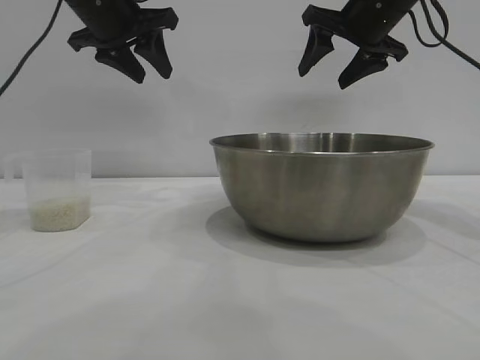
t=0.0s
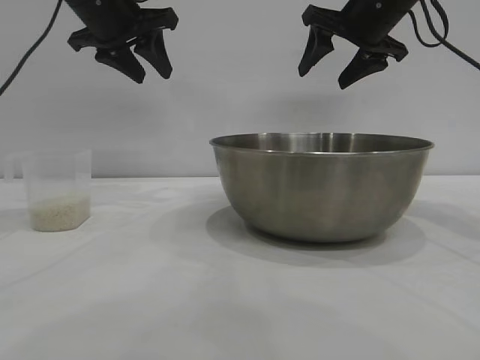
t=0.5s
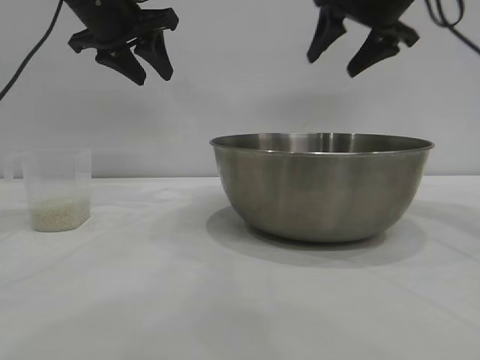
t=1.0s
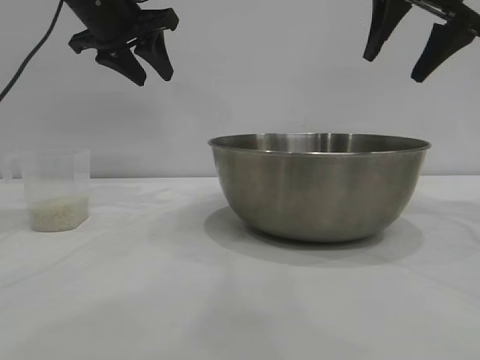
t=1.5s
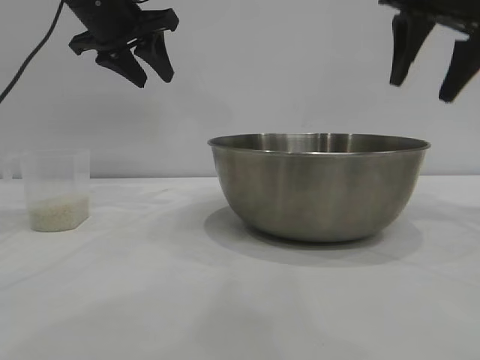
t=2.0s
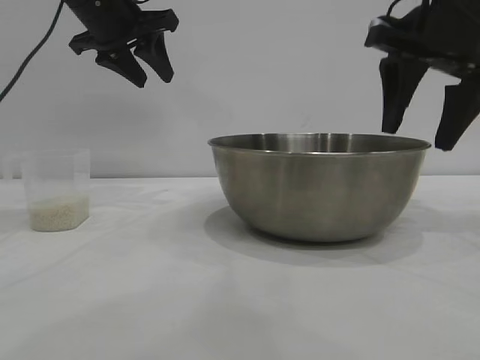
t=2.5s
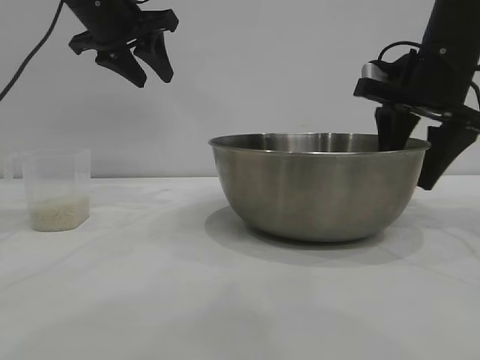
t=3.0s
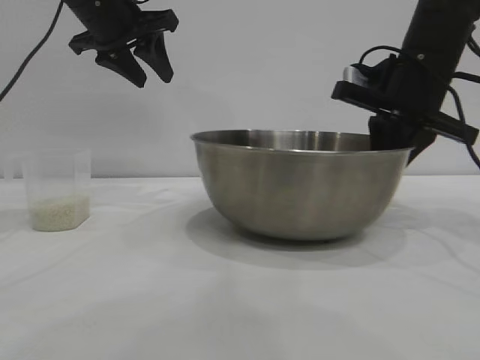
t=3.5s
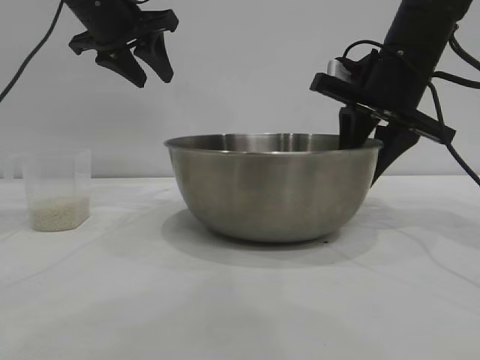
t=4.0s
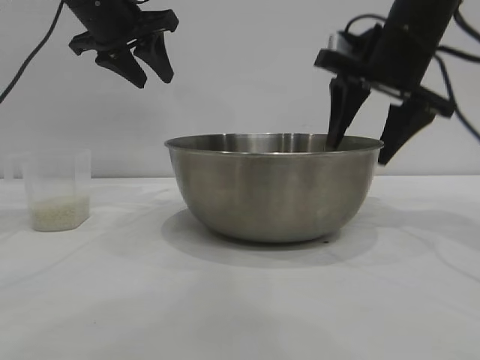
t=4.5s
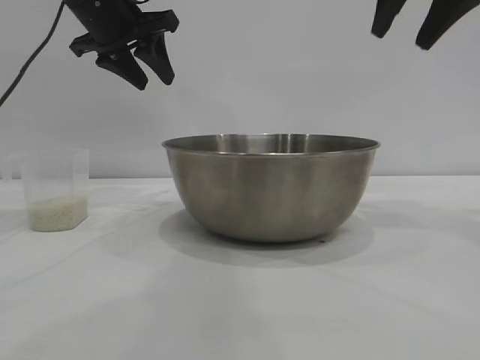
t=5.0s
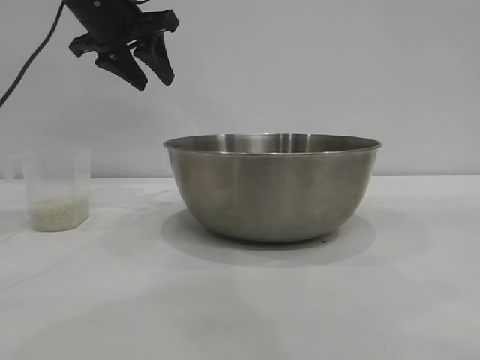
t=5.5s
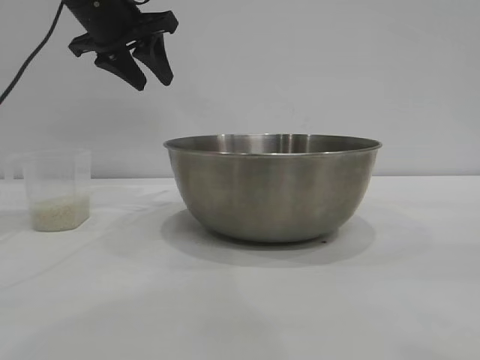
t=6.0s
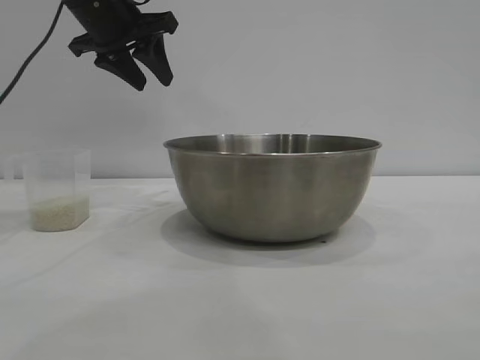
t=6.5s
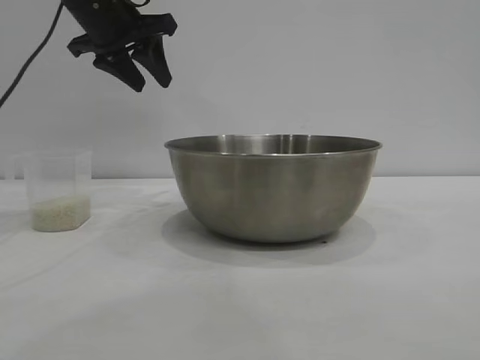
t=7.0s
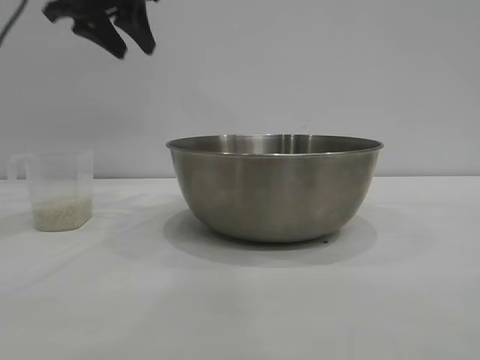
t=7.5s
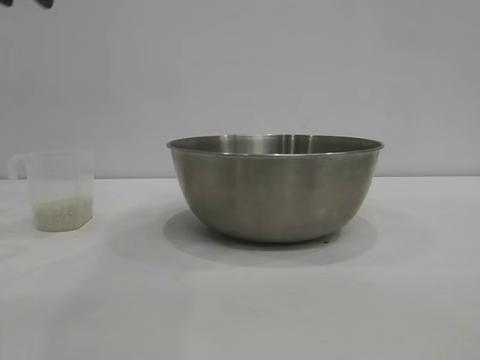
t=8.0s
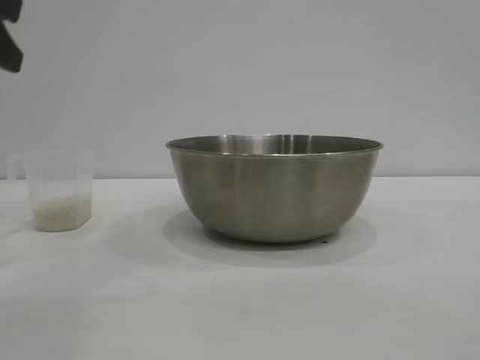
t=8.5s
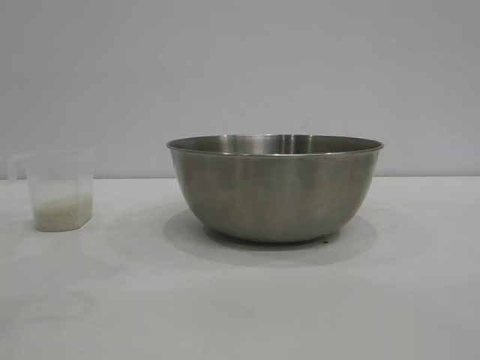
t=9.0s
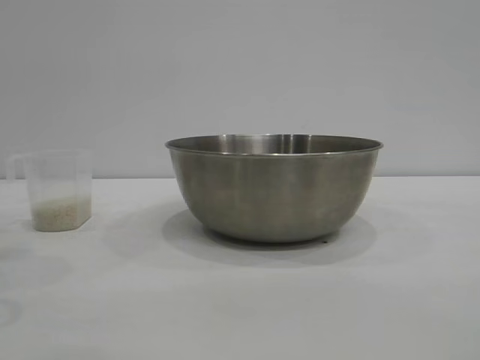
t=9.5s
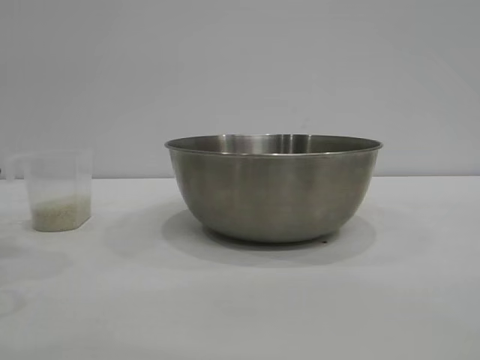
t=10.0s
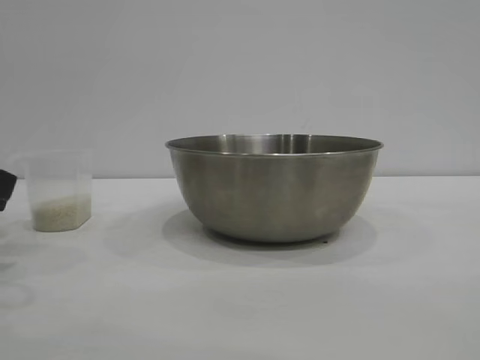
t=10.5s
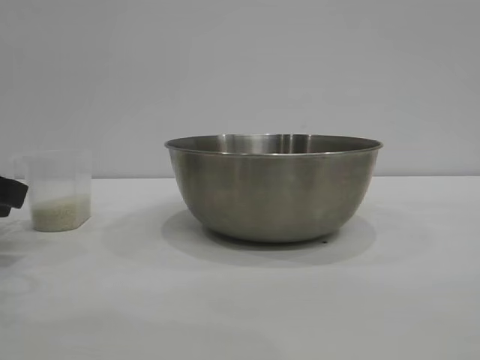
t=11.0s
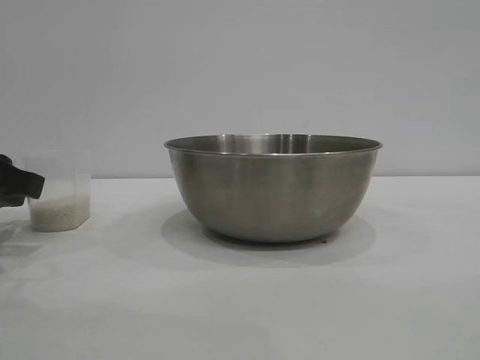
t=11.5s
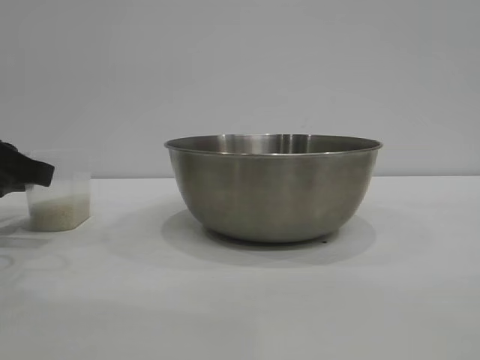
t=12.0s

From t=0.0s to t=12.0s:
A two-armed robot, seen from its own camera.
Task of the whole recording: the right gripper grasp the rice container and place it in the center of the table, the left gripper grasp the rice scoop and pour the rice into the rice container.
Step, from t=0.0s to t=3.5s: Pick up the bowl with the right gripper.
Step, from t=4.0s to t=4.5s: Place the bowl in the center of view with the right gripper.

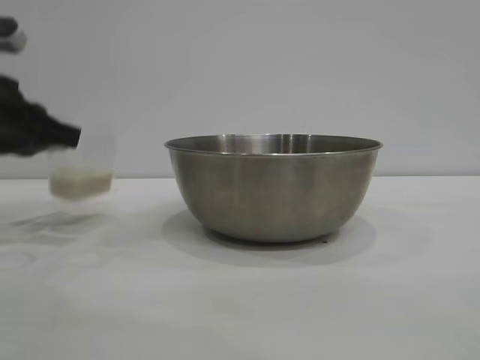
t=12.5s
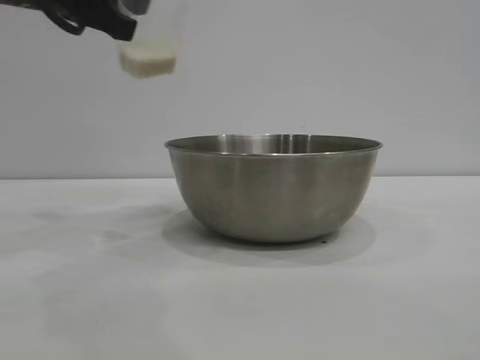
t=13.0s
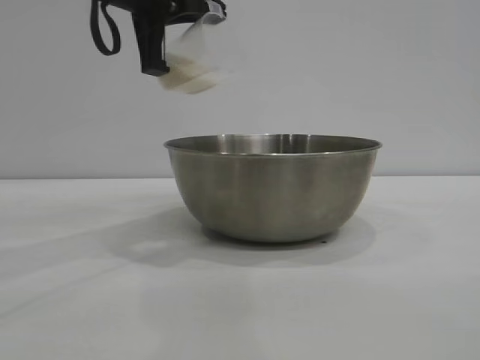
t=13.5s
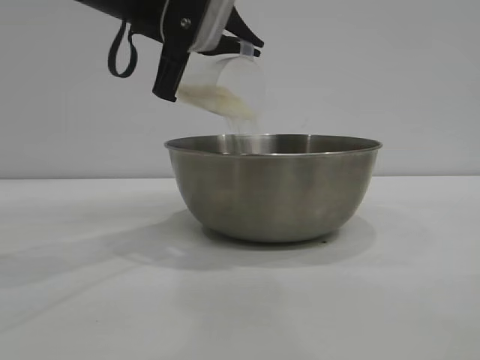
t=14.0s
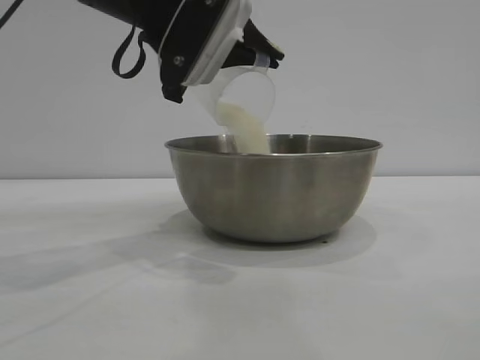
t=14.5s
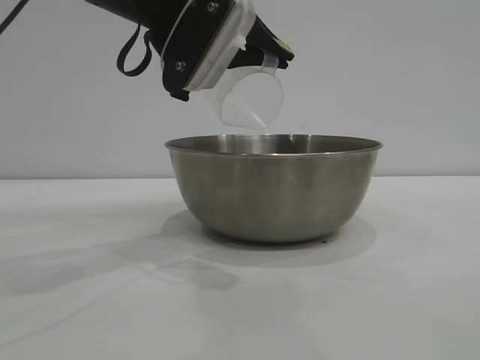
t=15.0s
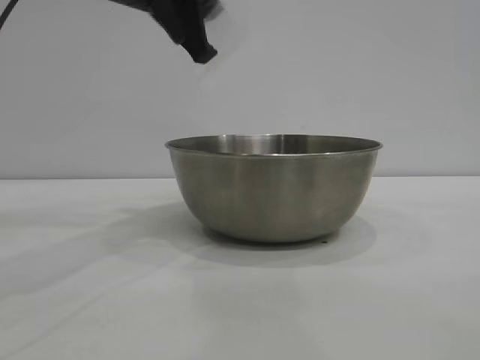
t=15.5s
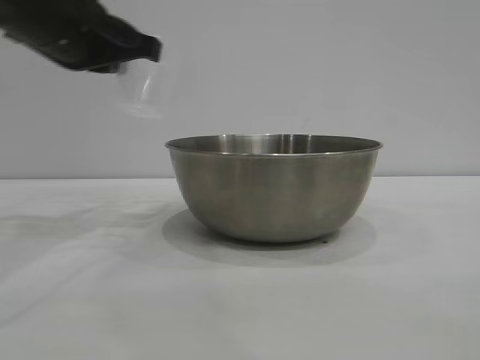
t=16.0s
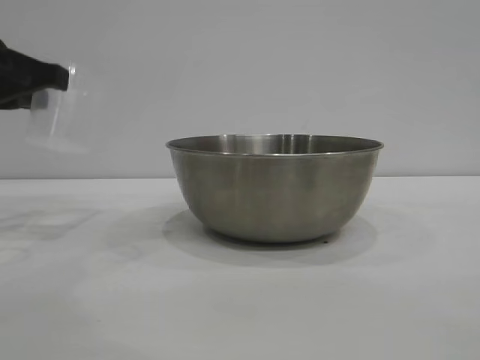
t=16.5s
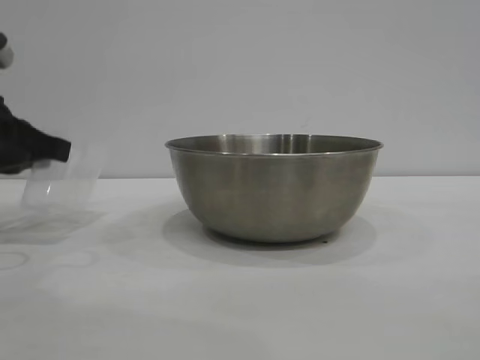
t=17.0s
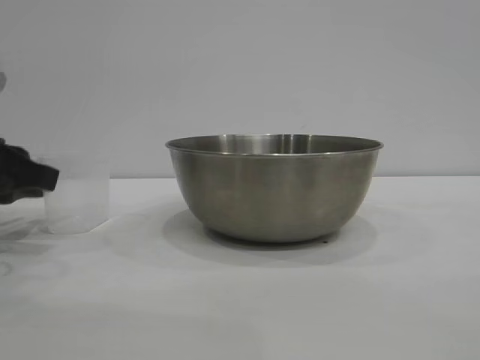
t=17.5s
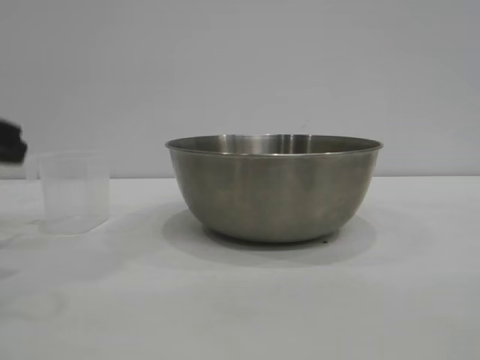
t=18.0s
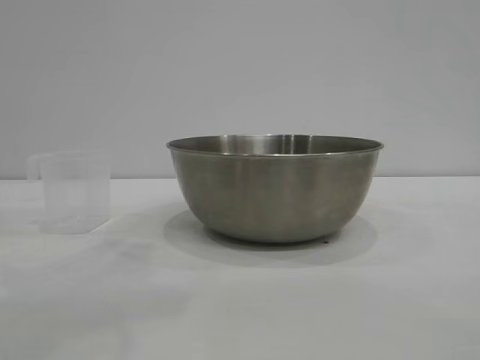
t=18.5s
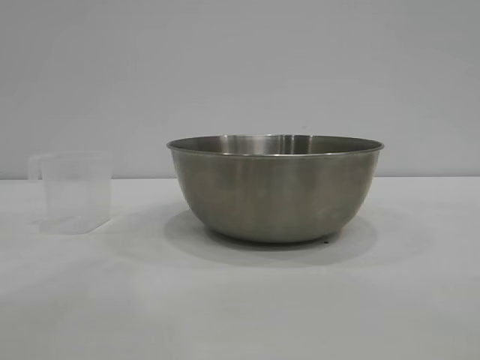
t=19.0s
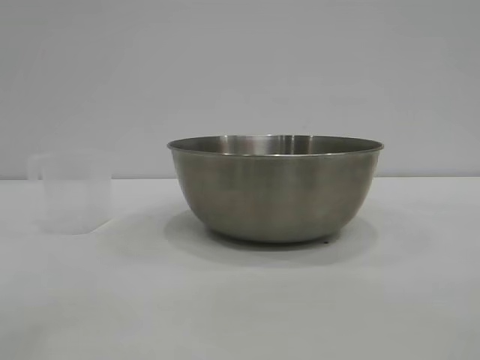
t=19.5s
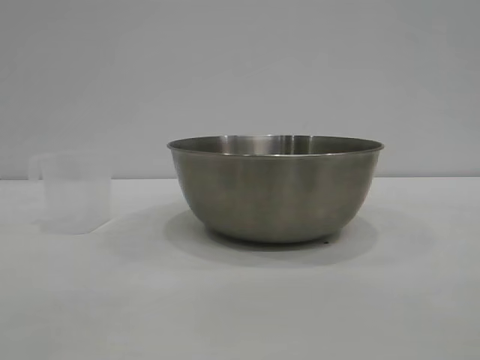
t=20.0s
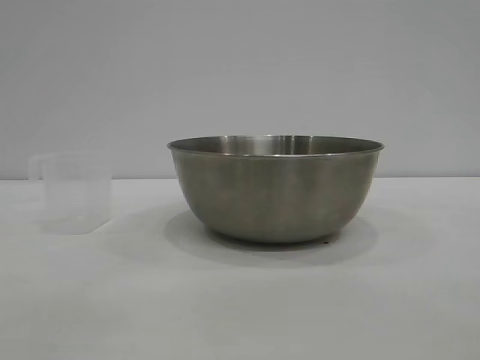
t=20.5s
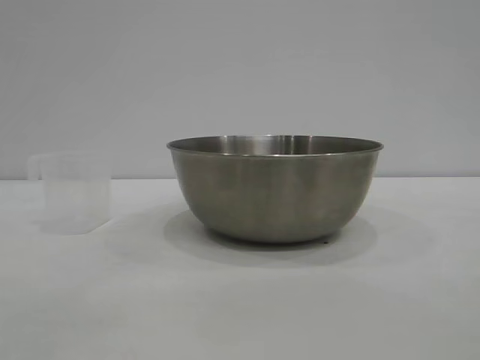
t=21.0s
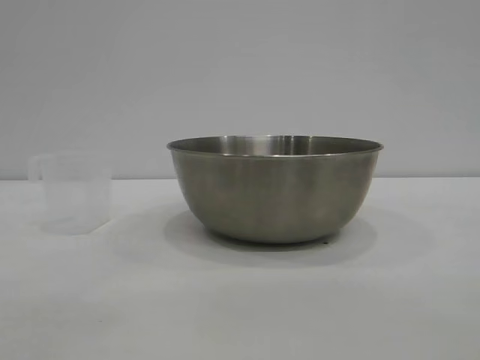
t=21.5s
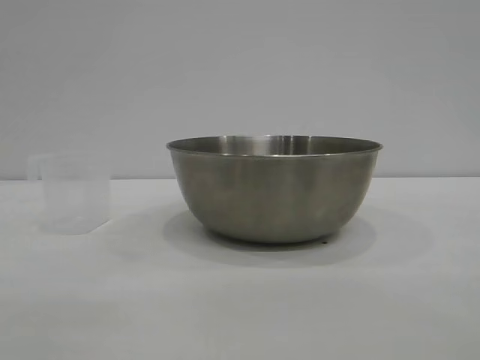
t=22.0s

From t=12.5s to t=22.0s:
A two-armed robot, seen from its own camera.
Task of the whole recording: the right gripper grasp the rice container and place it in the center of the table, the left gripper grasp the rice scoop and pour the rice into the rice container.
Step, from t=13.0s to t=14.5s: Pour the rice from the cup into the bowl with the left gripper.
Step, from t=15.0s to t=17.5s: Place the cup on the table with the left gripper.
